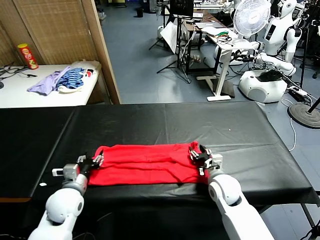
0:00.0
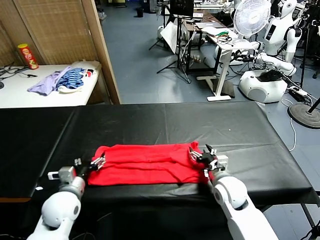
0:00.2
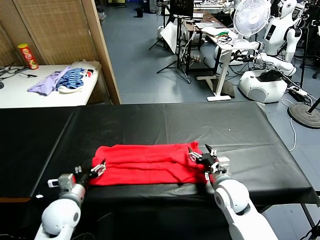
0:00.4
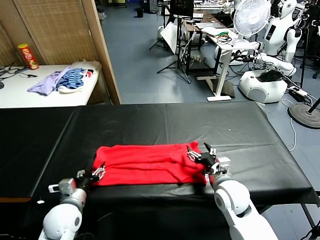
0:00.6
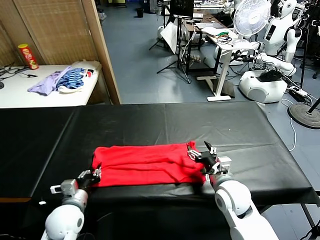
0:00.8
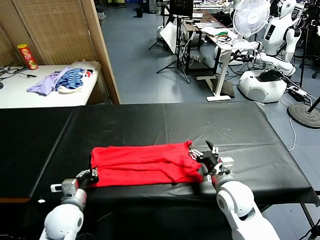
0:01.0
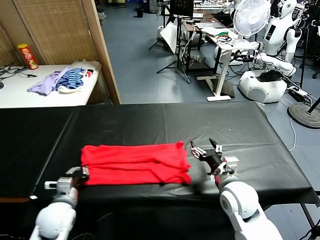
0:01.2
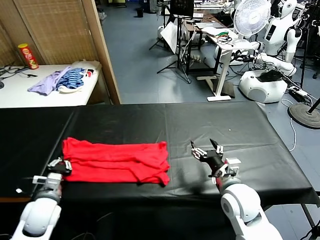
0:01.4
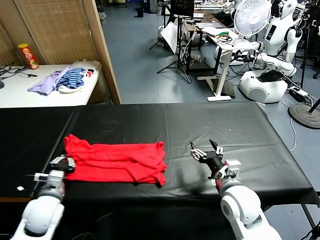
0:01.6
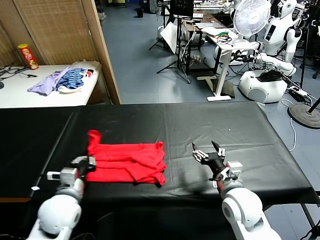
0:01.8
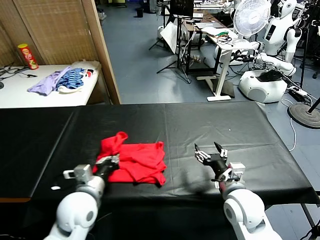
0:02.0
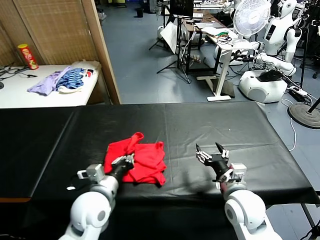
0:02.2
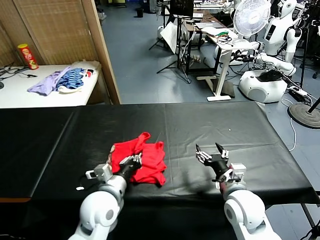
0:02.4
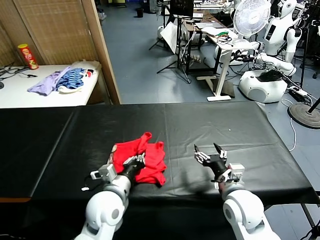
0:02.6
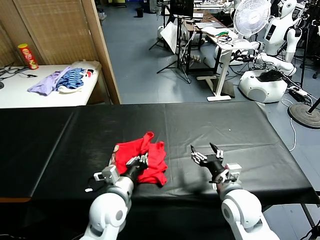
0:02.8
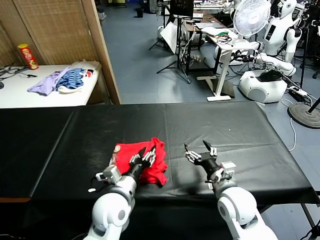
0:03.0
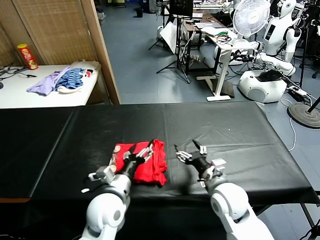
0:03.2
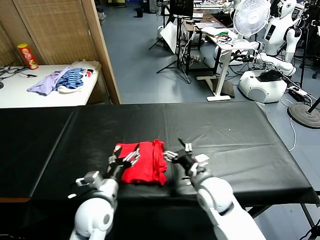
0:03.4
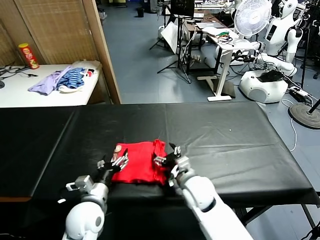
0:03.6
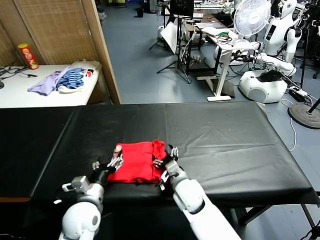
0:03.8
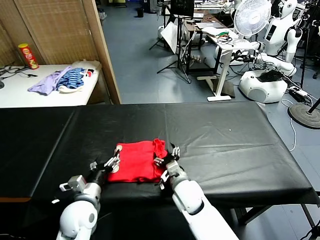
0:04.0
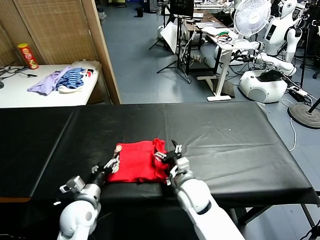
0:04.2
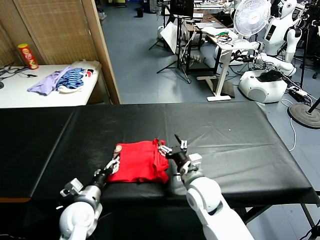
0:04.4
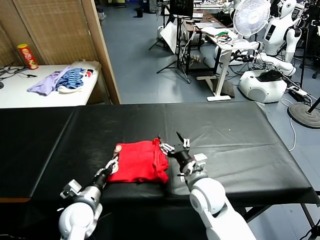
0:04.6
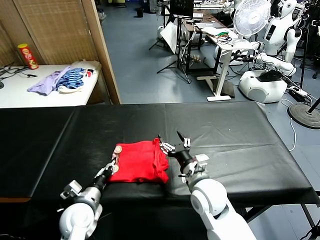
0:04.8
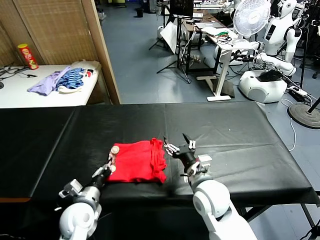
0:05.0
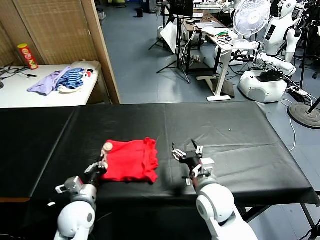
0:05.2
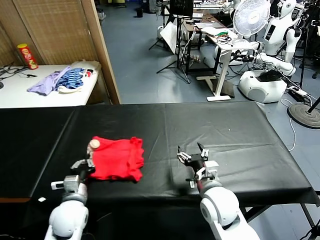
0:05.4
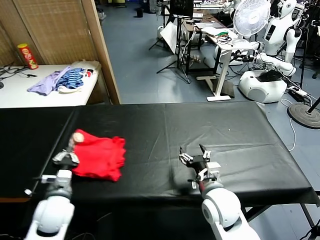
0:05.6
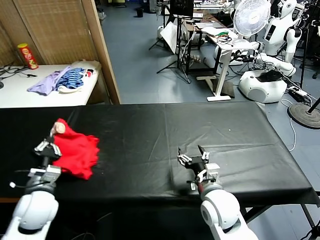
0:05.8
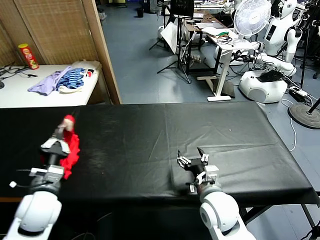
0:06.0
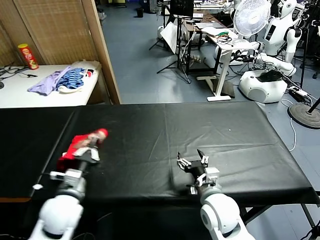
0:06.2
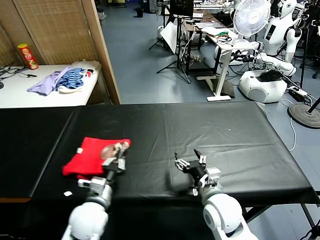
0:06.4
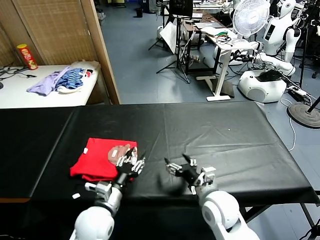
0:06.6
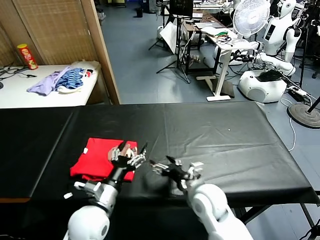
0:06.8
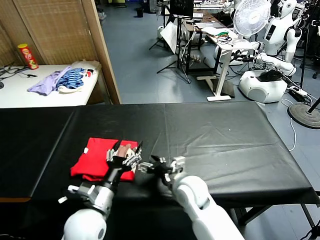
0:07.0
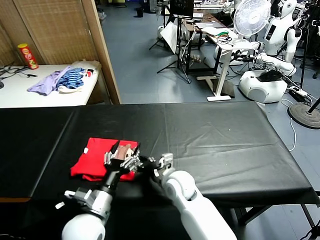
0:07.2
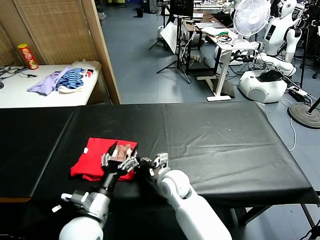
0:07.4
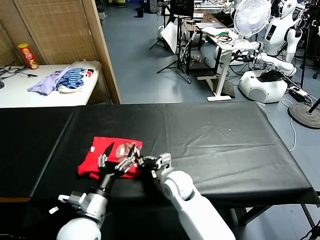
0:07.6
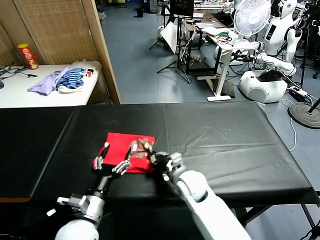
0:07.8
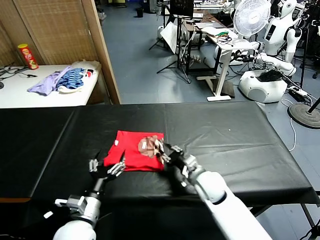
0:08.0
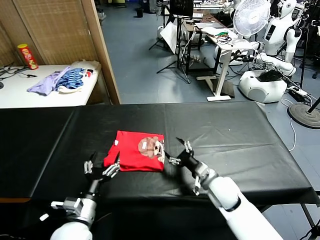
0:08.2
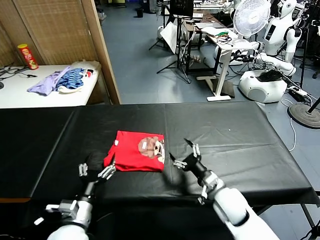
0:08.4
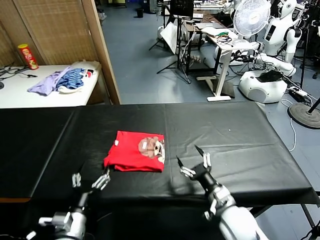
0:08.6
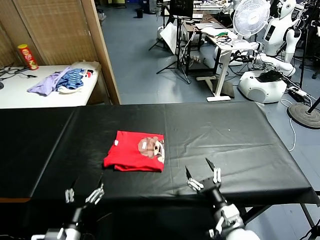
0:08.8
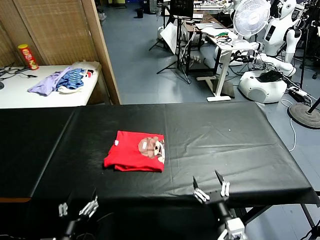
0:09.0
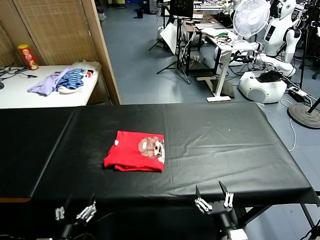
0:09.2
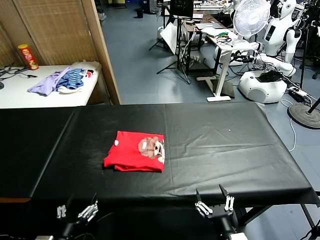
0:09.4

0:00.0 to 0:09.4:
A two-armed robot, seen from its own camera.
Task of the whole recording: fold and organize the clothes.
Step, 0:01.4 to 0:03.0: use the left gripper to drag the left edge of the fabric to the left and folds it over the right edge.
Step, 0:03.4 to 0:06.6: Flip the folded clothes over with left gripper.
Step, 0:06.8 to 0:08.2: Drag the clothes to the center of the table.
0:00.0 to 0:01.6: The right gripper travels upward and backward by approximately 10 cm; the left gripper ends up some 5 cm from where it was, and closes its fingers.
0:01.6 to 0:03.2: The left gripper goes about 20 cm to the right, and opens.
0:03.2 to 0:04.8: The left gripper travels to the left and downward by about 15 cm, and closes; the right gripper shifts about 5 cm to the left.
0:04.8 to 0:06.2: The left gripper shifts approximately 10 cm upward, and closes its fingers.
0:06.2 to 0:07.8: The left gripper goes roughly 10 cm to the right and backward, and opens, while the right gripper heads forward, to the left and downward, covering about 15 cm, and closes its fingers.
0:07.8 to 0:09.4: The right gripper travels backward and to the right by approximately 30 cm, and opens, while the left gripper goes approximately 15 cm backward and to the left.

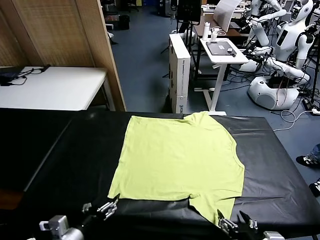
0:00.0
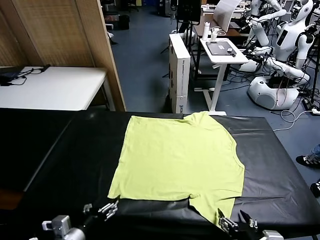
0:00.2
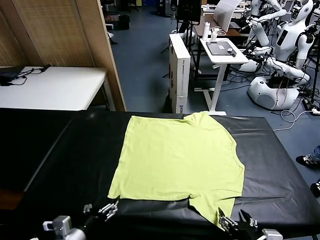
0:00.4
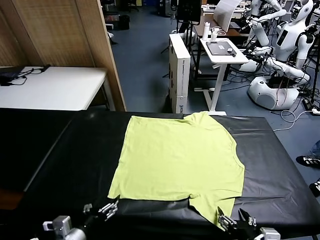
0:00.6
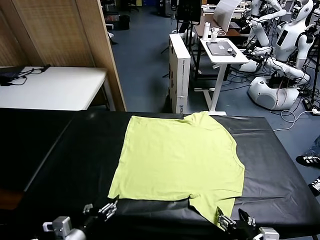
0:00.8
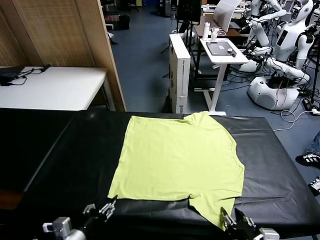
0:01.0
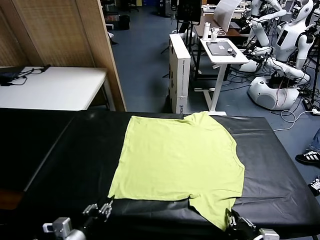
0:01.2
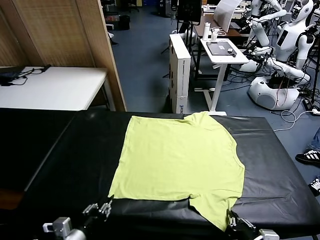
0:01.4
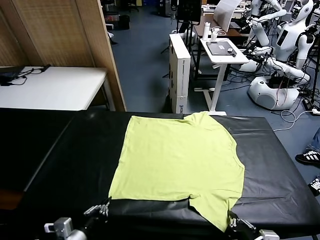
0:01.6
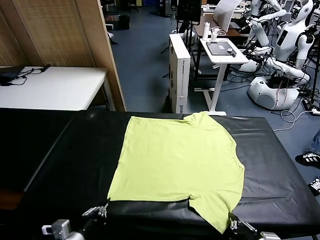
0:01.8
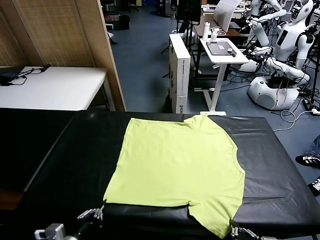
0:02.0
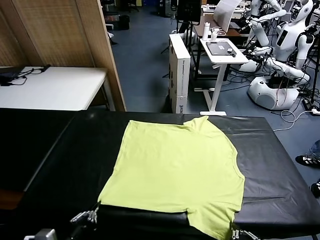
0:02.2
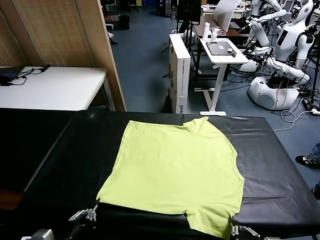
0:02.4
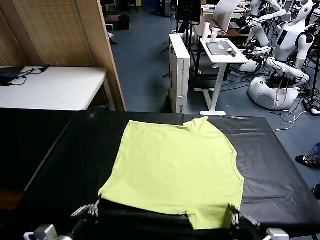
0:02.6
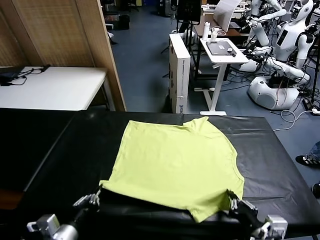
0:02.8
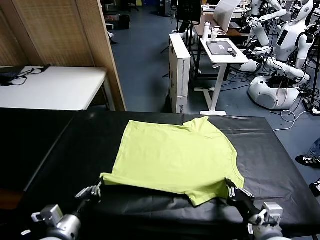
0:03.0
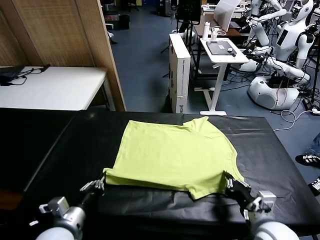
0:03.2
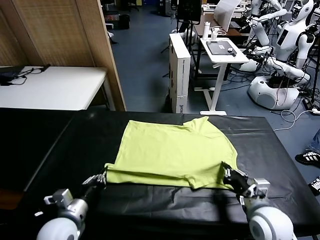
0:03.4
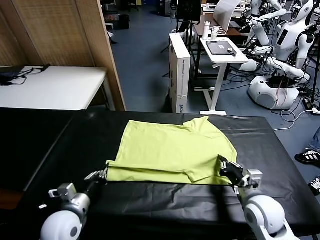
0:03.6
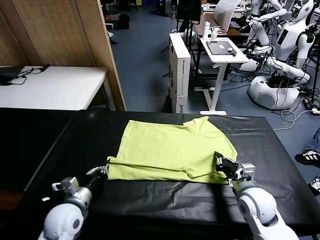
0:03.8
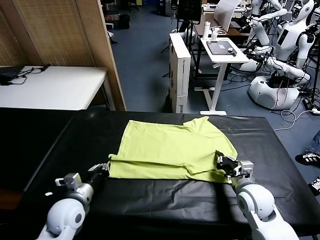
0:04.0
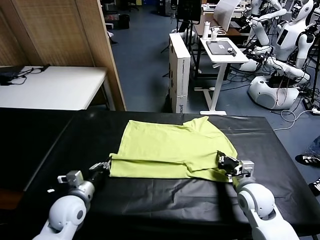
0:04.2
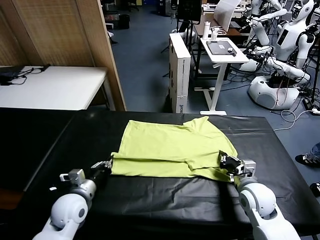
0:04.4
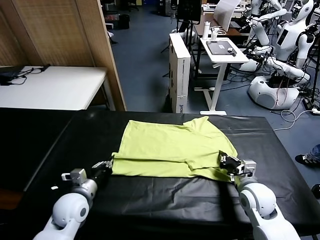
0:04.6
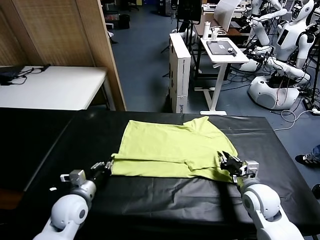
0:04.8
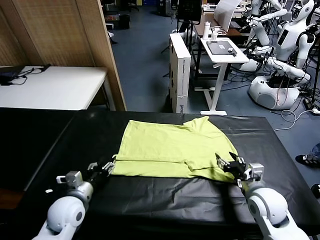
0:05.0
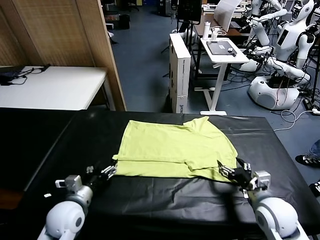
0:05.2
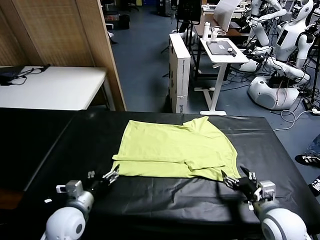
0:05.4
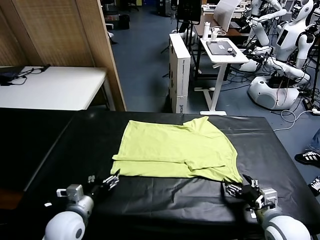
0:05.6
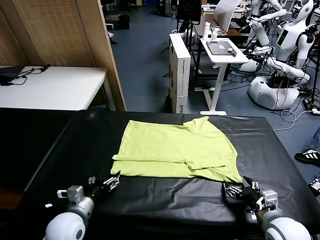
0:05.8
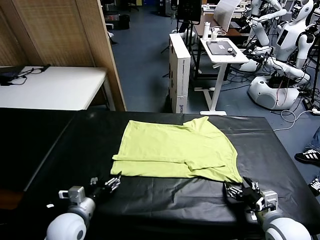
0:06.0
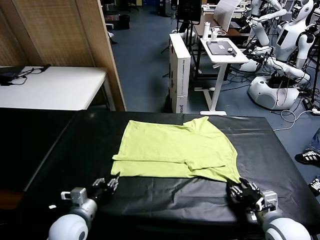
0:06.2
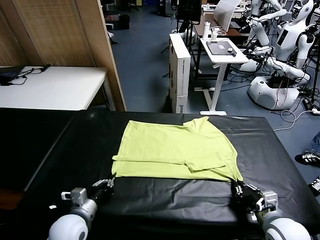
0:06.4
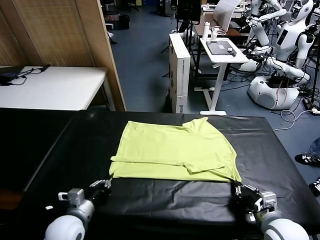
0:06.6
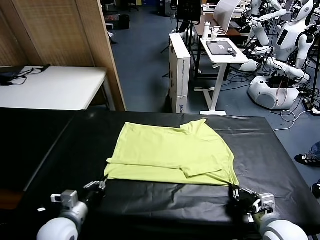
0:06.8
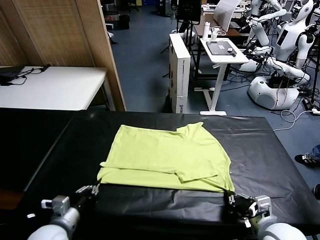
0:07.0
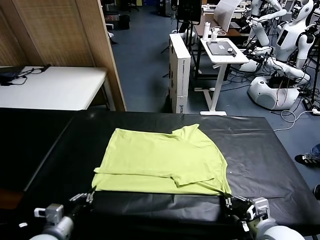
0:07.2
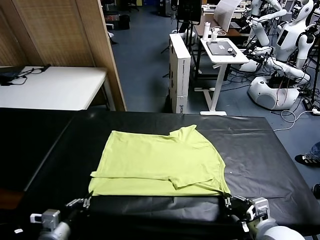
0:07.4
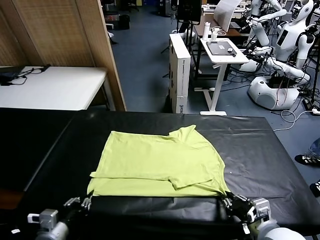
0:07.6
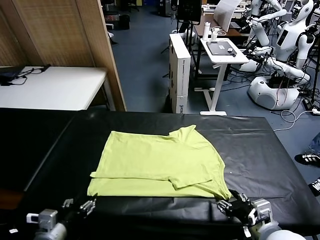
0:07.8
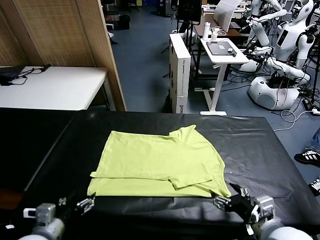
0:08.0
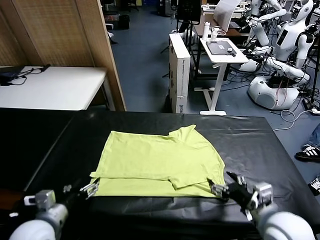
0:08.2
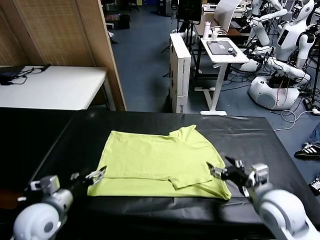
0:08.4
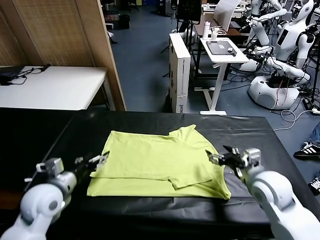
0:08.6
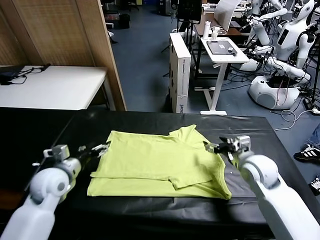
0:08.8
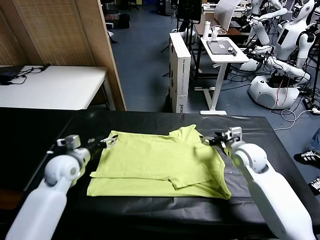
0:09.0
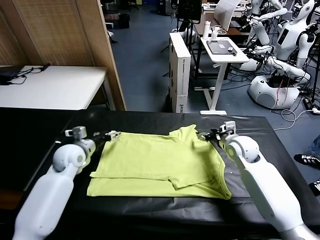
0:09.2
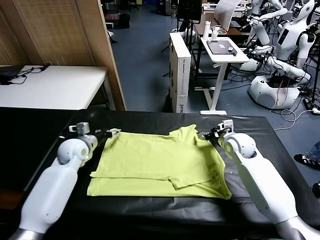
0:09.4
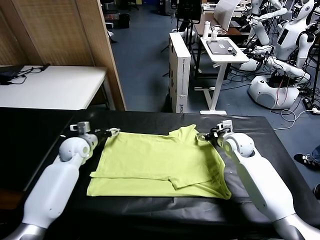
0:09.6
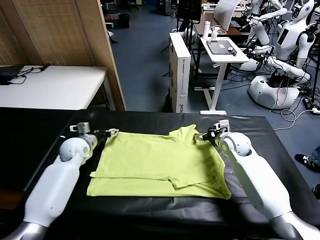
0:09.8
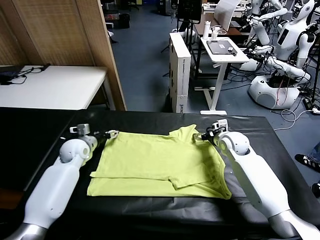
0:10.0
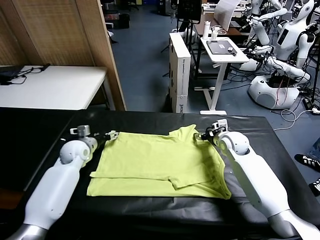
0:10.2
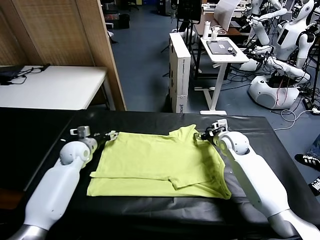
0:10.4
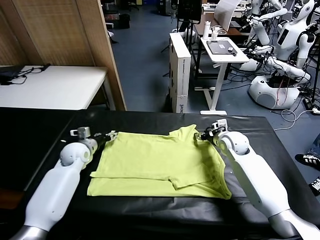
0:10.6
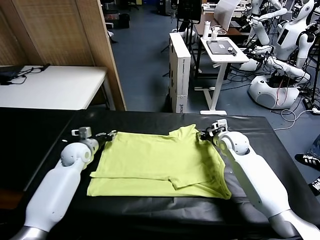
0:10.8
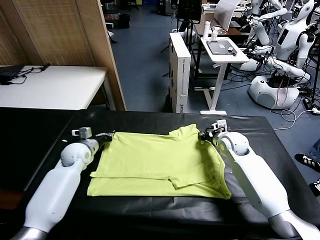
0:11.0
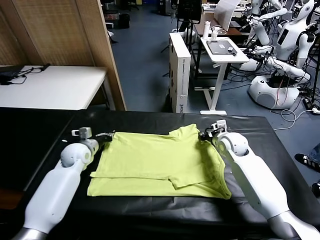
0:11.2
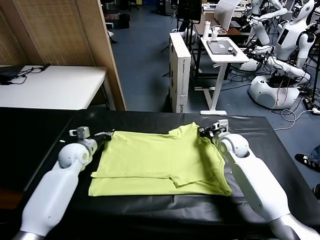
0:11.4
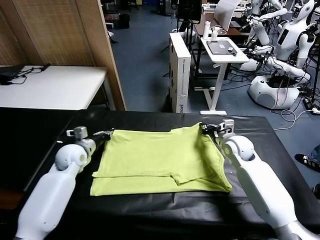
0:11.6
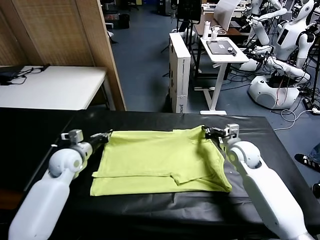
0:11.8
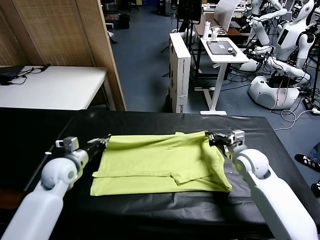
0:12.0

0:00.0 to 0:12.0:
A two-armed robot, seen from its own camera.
Task of the whole recording: fold and organize the clothes.
Step, 0:00.0 to 0:01.6: use both grippers simultaneously to clamp the lower edge of the clothing fabric.
Step, 0:02.0 to 0:05.0: use both grippers to drag the lower edge of the fabric forward and fold it over the upper edge.
Step, 0:05.2 to 0:07.8: Drag the clothes downward with both gripper.
Step, 0:08.0 to 0:11.2: use both grippers simultaneously to clamp the upper edge of the clothing fabric.
0:01.6 to 0:03.0: The right gripper moves forward, approximately 10 cm; the left gripper shifts roughly 5 cm forward.
0:03.0 to 0:04.4: The two grippers go some 10 cm forward.
0:04.4 to 0:06.0: The left gripper goes approximately 5 cm backward, and opens up; the right gripper heads backward, covering approximately 10 cm, and opens, then closes again.
0:06.0 to 0:07.6: The left gripper heads backward, covering approximately 10 cm, and closes, then reopens. The right gripper heads upward and to the left, covering about 10 cm, and opens up.
0:07.6 to 0:09.0: The grippers both shift forward by roughly 30 cm.
0:09.0 to 0:10.4: The left gripper travels forward by roughly 5 cm.
0:10.4 to 0:12.0: Both grippers move backward, some 15 cm. The right gripper closes; the left gripper closes its fingers.
